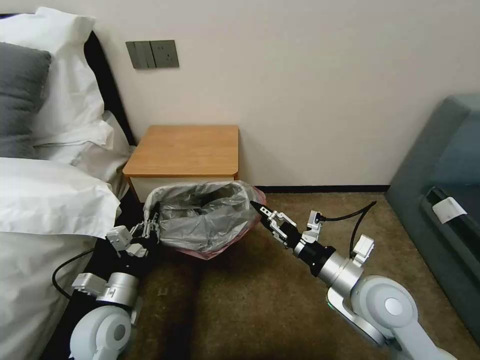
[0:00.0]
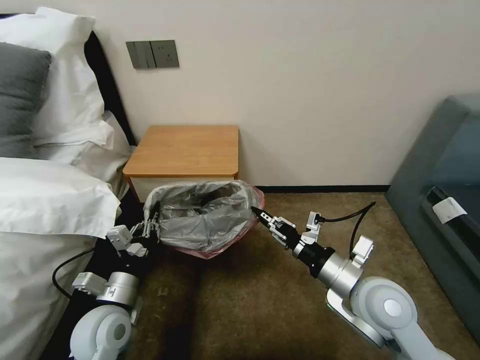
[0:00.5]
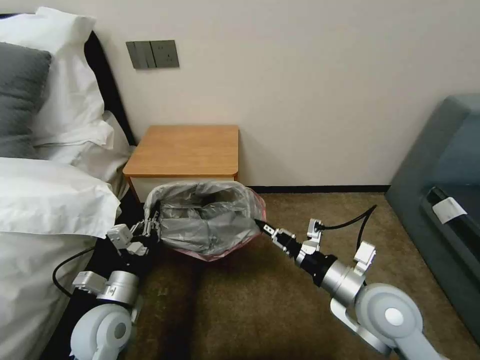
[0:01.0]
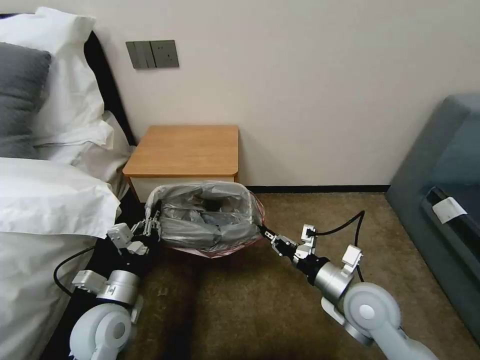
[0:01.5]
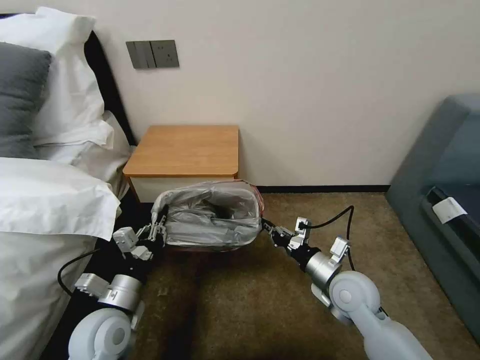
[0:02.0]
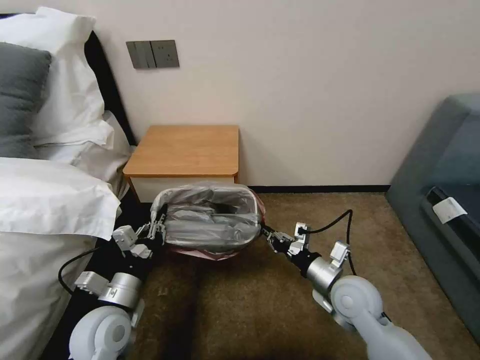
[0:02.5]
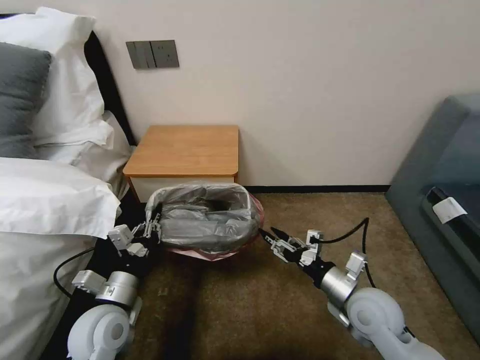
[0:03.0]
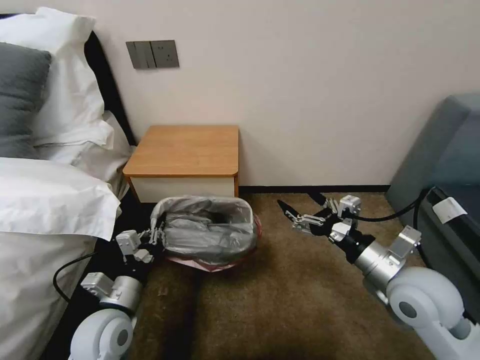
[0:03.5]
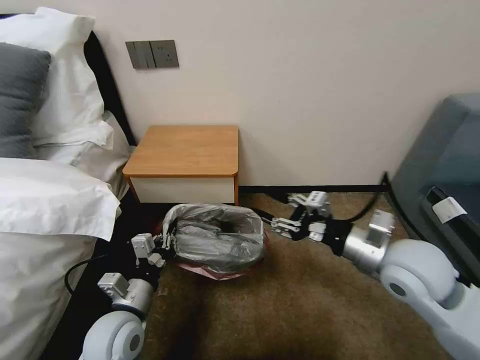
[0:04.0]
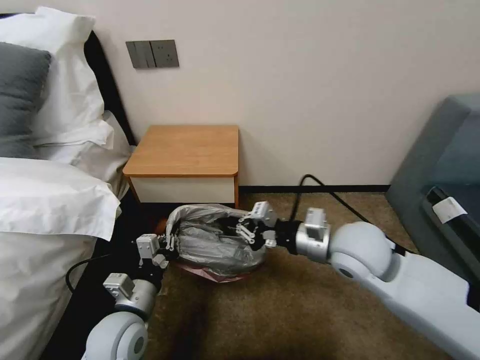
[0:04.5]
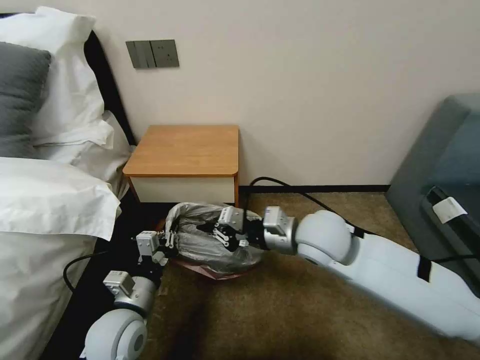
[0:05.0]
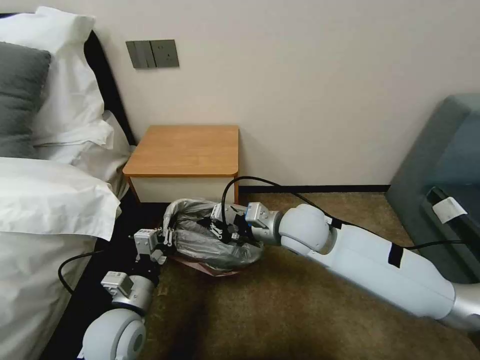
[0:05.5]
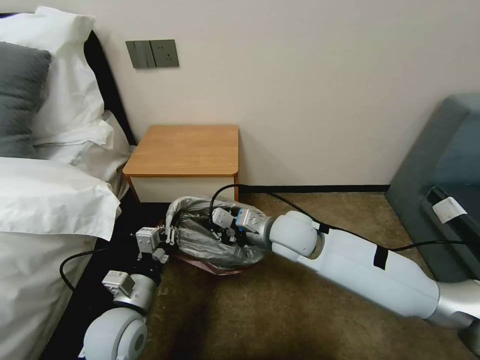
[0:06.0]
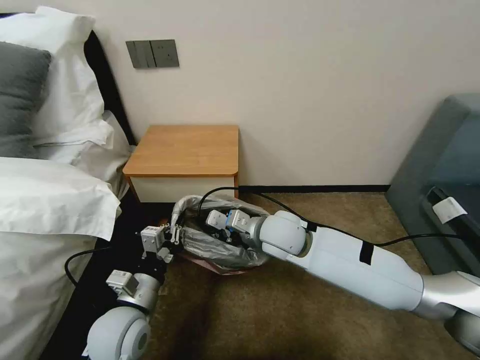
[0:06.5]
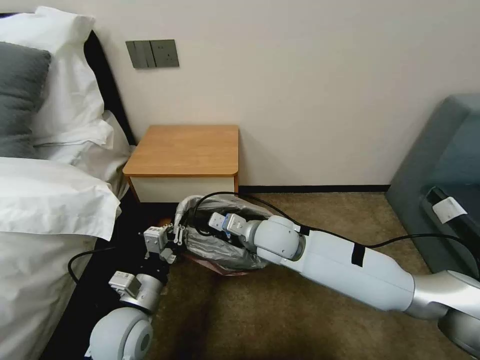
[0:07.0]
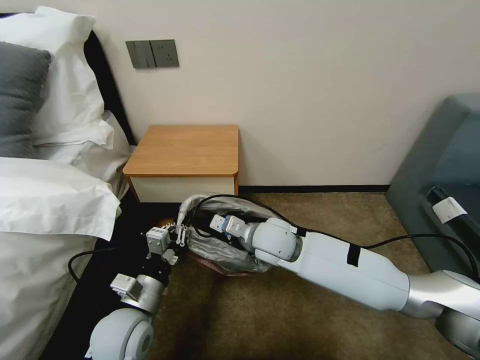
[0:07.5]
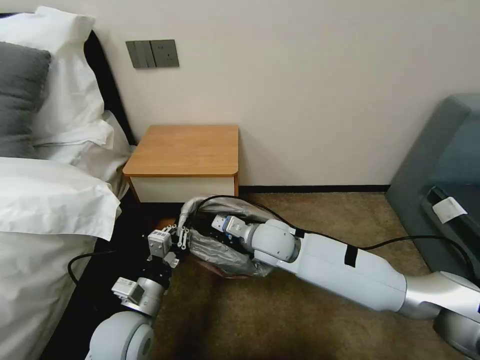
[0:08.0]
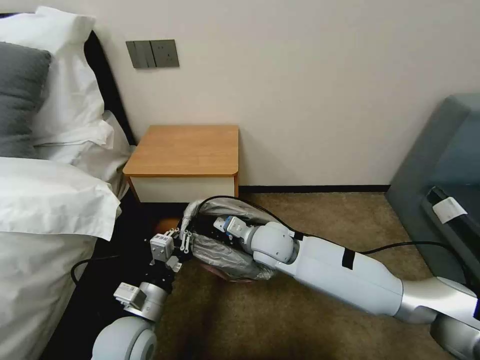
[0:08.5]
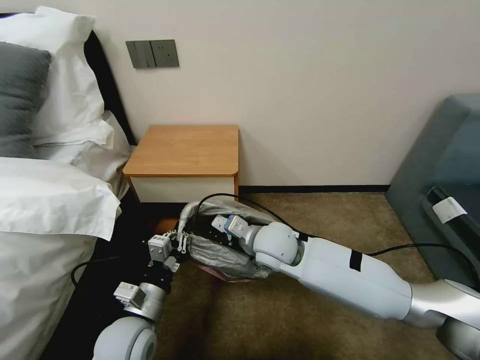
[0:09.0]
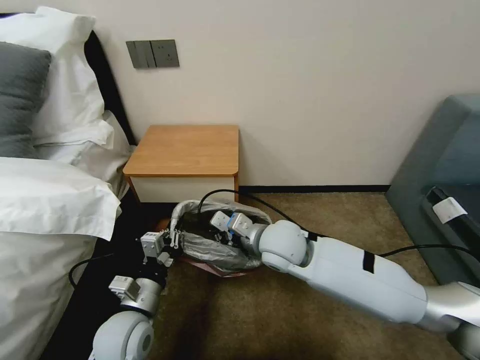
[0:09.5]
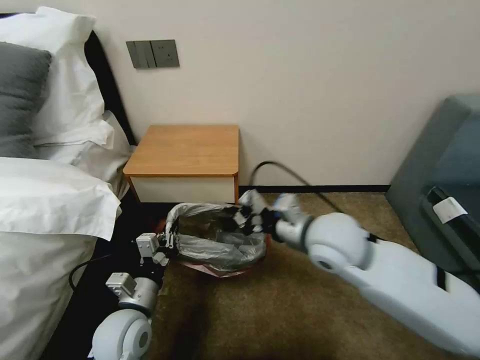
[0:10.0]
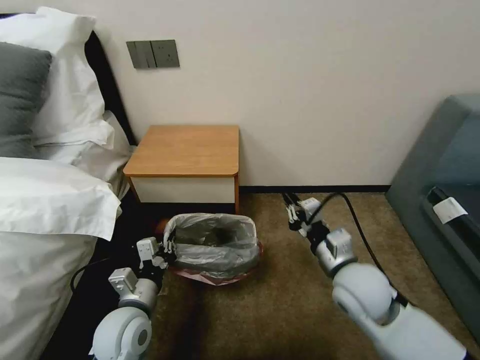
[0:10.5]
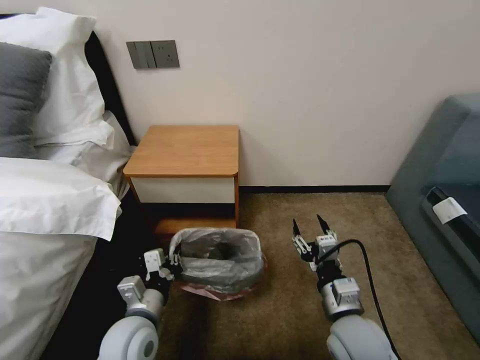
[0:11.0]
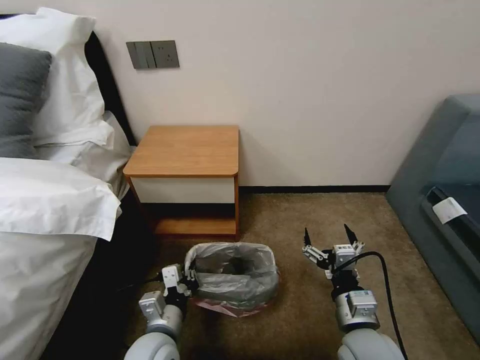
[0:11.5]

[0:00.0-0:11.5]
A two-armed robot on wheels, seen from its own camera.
Task of the whole recording: Pick up the garbage bag from the table and place it over the trash can.
0:00.0 to 0:02.0: The right gripper travels downward by roughly 10 cm, and closes.
0:02.0 to 0:04.0: The right gripper goes about 15 cm upward, and opens up.
0:04.0 to 0:06.0: The right gripper shifts some 20 cm to the left and forward, and closes its fingers.
0:06.0 to 0:07.5: There are only small adjustments of the grippers.
0:07.5 to 0:09.5: The grippers make only small movements.
0:09.5 to 0:11.5: The right gripper travels backward, to the right and downward by roughly 25 cm, and opens. The left gripper heads to the right, covering some 5 cm.

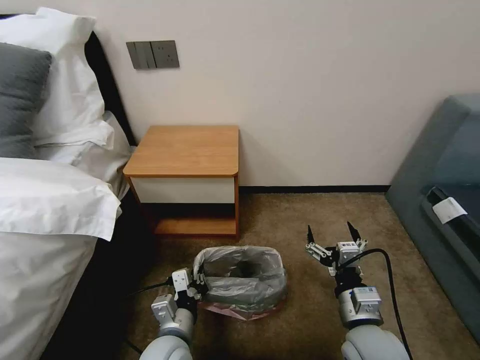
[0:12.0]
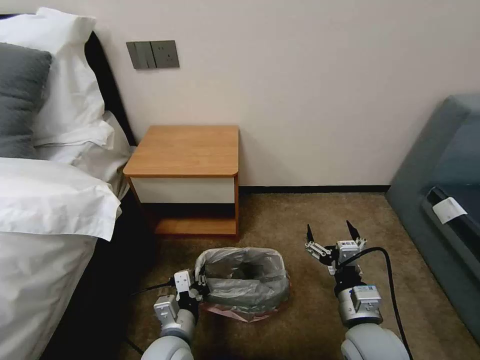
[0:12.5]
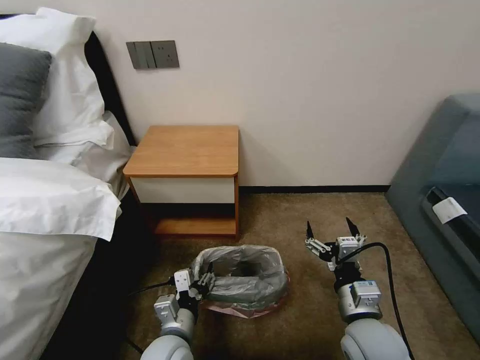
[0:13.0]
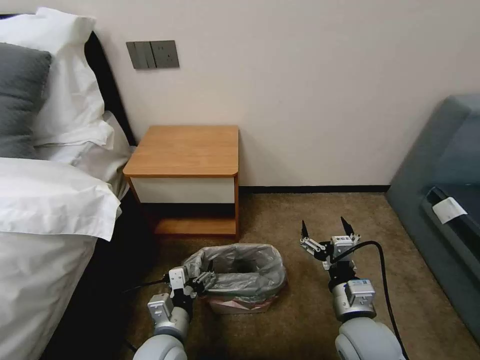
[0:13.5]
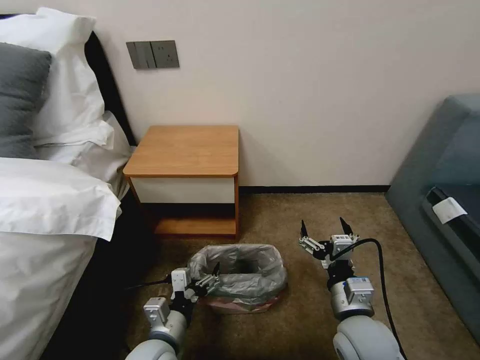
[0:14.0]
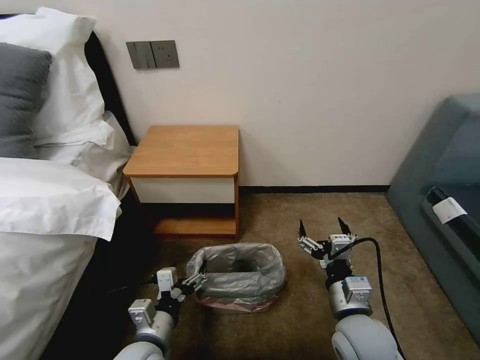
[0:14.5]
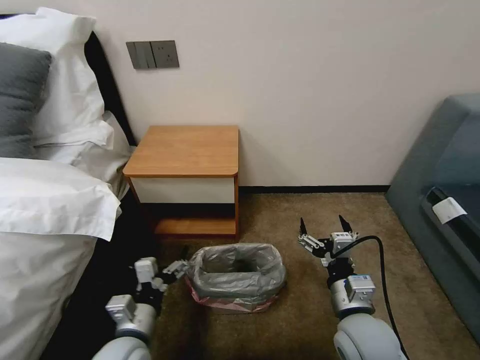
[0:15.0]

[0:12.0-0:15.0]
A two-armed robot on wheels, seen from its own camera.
Task of the whole recording: Pick up the garbage bag from the table and place it over the trash can.
0:12.0 to 0:13.5: The left gripper opens up.
0:13.5 to 0:15.0: The left gripper travels to the left by about 5 cm.
